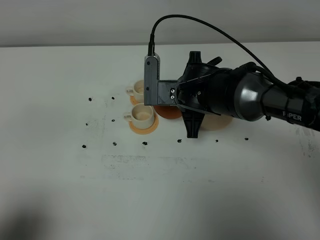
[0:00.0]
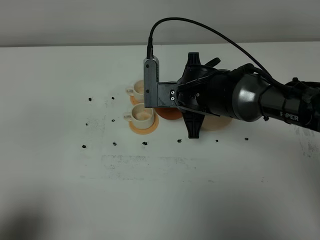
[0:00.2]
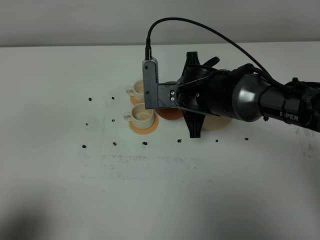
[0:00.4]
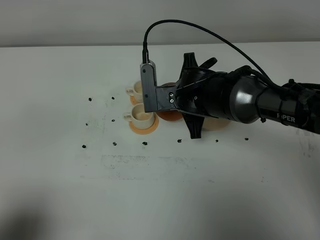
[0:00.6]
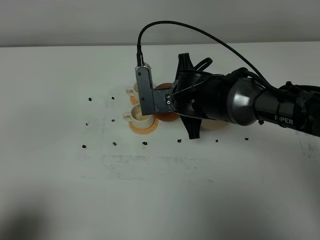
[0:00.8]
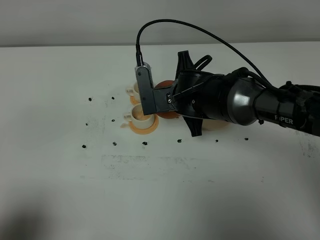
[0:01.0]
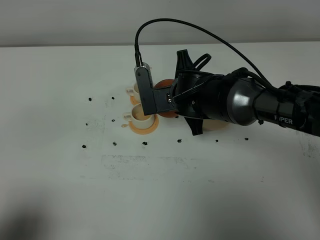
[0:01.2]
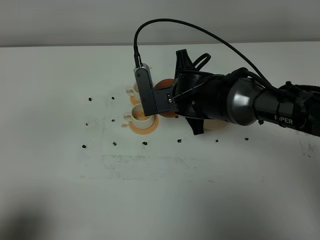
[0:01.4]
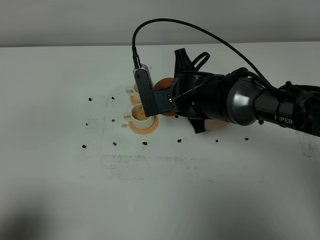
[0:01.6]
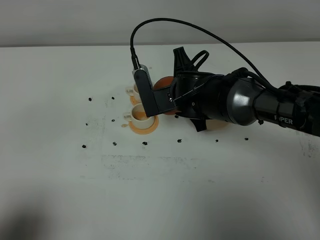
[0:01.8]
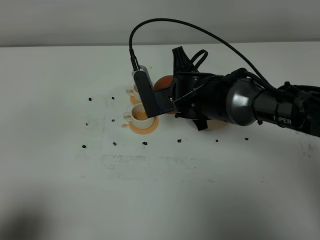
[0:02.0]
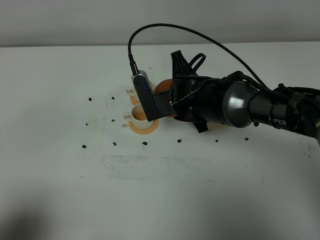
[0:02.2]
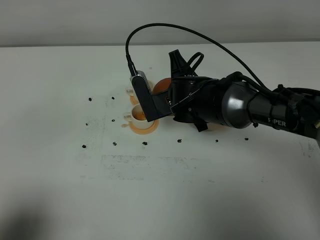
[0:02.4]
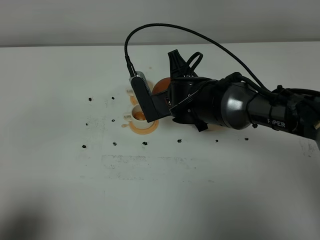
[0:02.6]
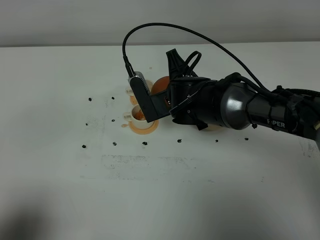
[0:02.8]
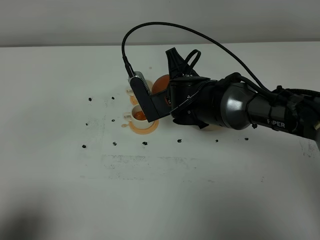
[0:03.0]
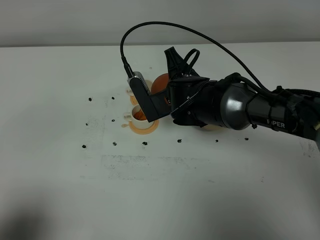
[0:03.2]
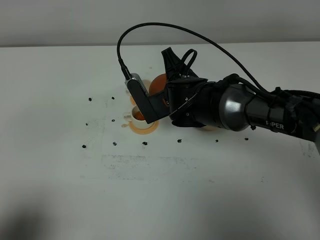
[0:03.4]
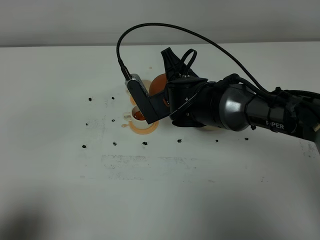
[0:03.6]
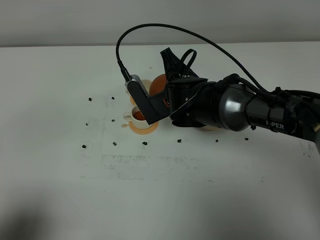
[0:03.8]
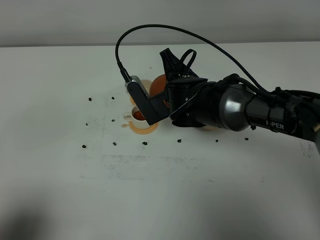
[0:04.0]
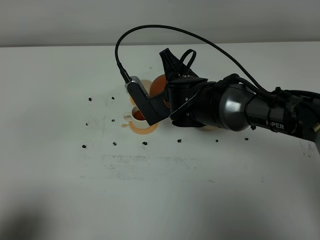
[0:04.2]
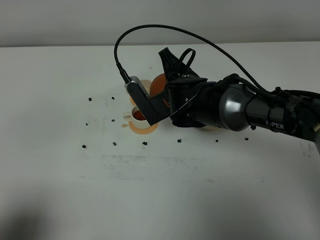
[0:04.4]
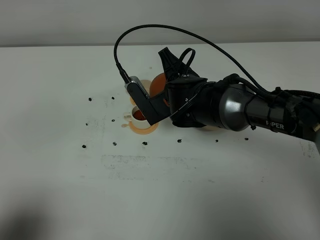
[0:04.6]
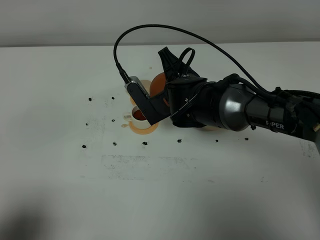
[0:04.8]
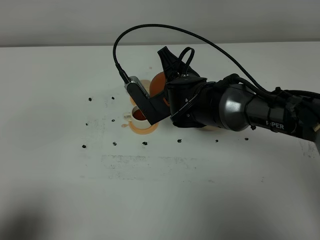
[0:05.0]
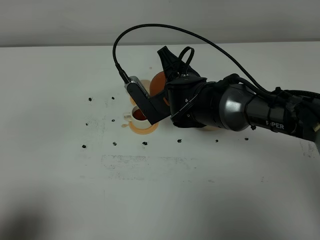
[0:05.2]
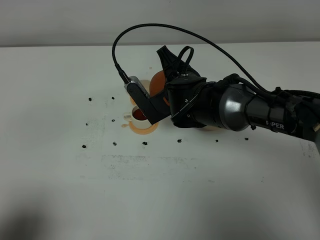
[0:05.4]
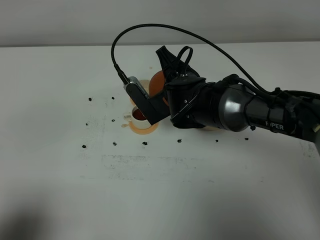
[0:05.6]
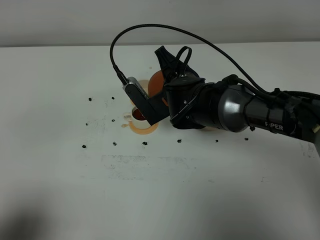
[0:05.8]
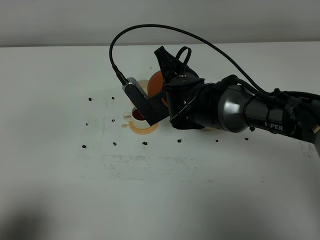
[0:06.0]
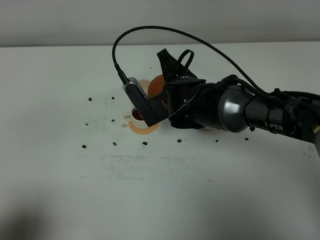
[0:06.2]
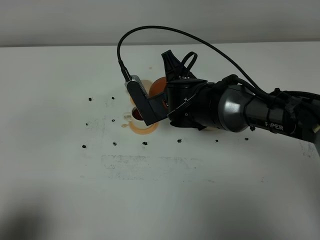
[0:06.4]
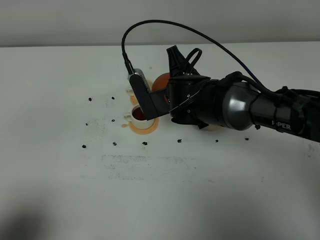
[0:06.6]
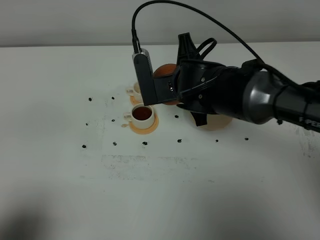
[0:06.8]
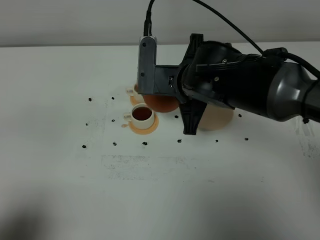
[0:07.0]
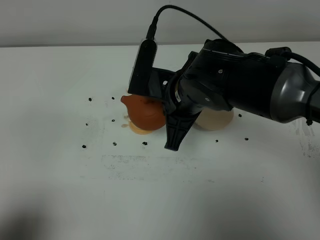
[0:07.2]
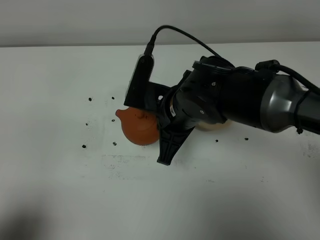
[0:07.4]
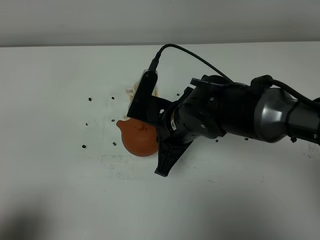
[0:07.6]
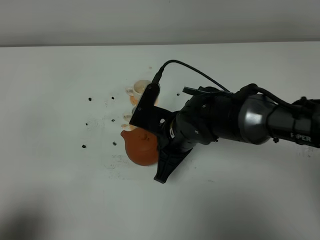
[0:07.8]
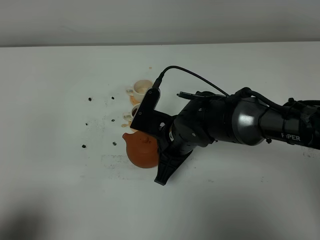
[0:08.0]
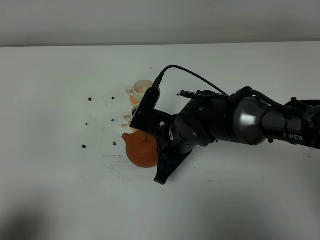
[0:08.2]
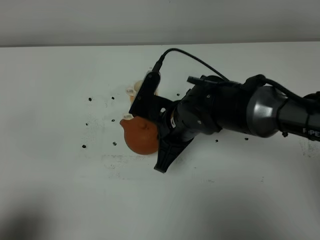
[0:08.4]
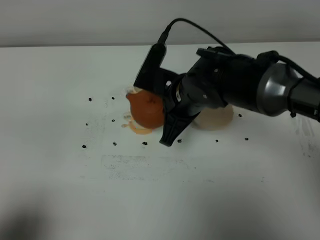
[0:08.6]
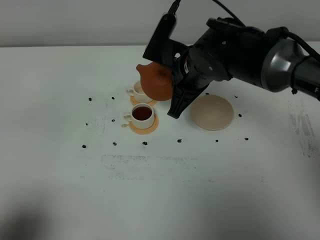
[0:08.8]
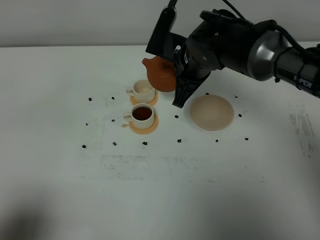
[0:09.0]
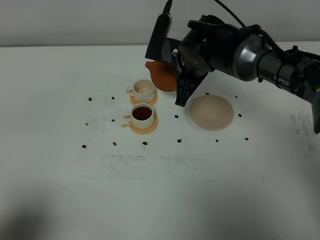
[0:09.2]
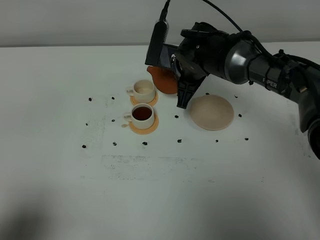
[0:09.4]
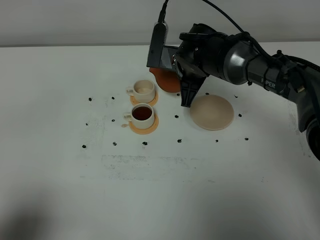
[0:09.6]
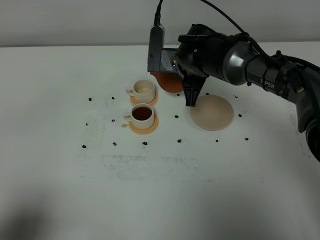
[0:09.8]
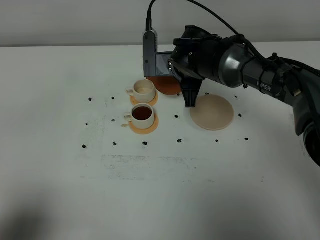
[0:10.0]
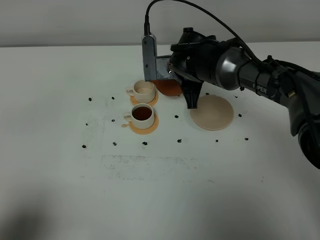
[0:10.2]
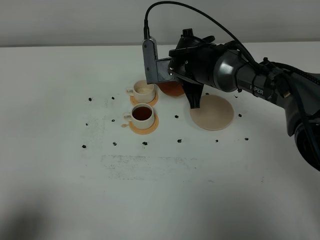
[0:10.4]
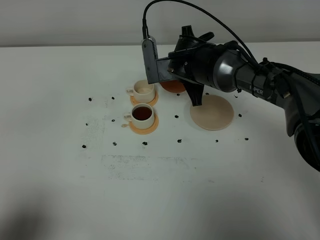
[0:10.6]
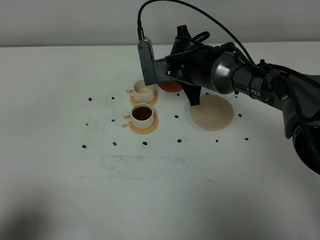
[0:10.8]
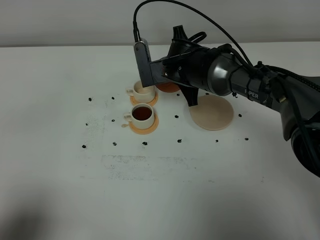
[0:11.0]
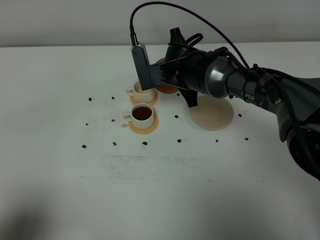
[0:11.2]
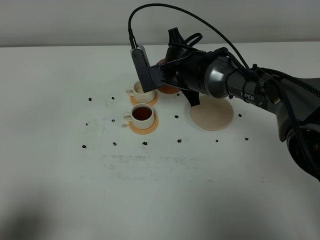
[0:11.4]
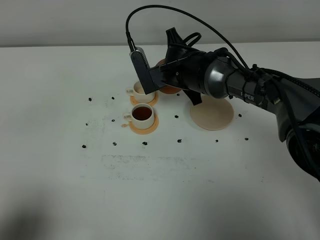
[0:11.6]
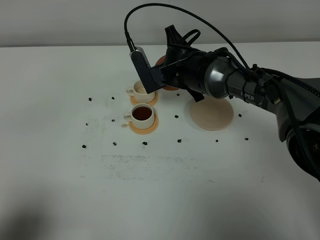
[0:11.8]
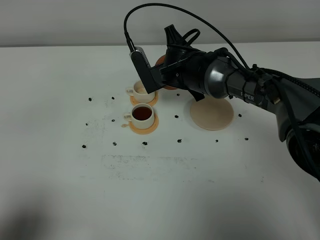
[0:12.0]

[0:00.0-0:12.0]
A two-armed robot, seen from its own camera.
Task of the whole recording: grasp the brown teapot and pour the tea into the two white teacups one by one, put the brown teapot back in its original place.
0:00.0 to 0:01.6: The grippers stay close to where they were, moving slightly.
0:01.6 to 0:04.4: The grippers make only small movements.
0:04.4 to 0:06.0: Neither gripper changes place.
0:06.0 to 0:07.6: The right gripper heads backward, covering about 5 cm.
0:07.6 to 0:09.0: The right gripper moves forward, about 10 cm.
0:09.0 to 0:10.4: The right gripper changes place by roughly 5 cm.
0:10.4 to 0:12.0: The grippers move only a little.

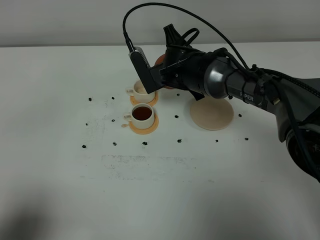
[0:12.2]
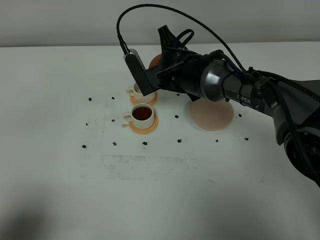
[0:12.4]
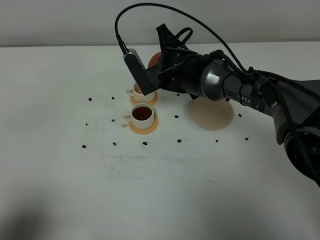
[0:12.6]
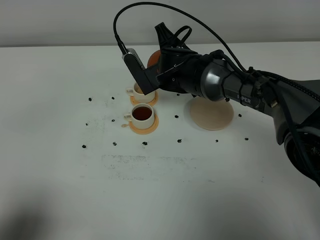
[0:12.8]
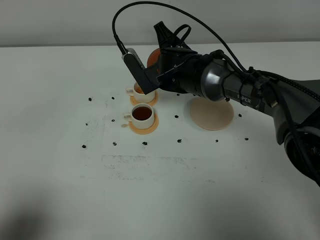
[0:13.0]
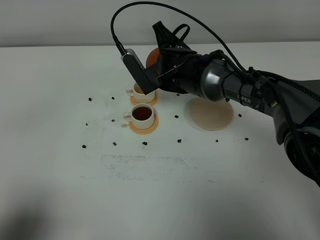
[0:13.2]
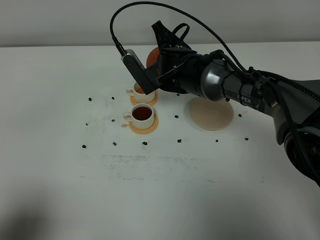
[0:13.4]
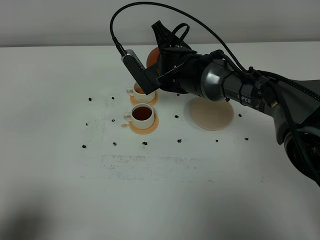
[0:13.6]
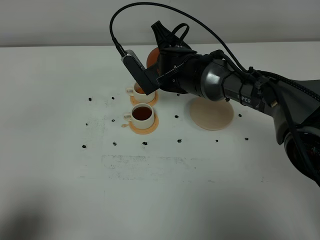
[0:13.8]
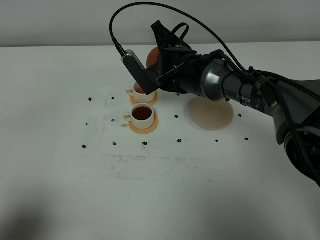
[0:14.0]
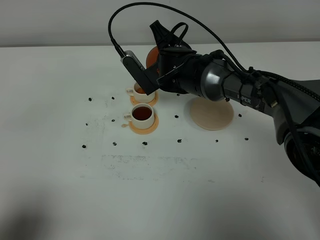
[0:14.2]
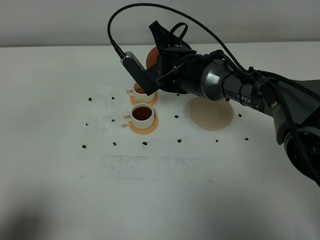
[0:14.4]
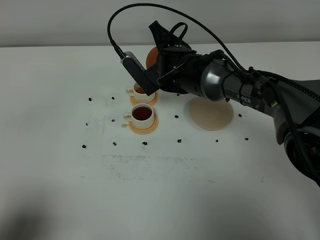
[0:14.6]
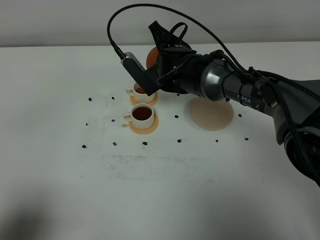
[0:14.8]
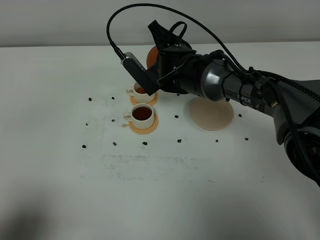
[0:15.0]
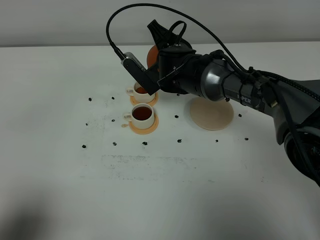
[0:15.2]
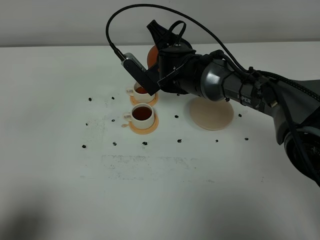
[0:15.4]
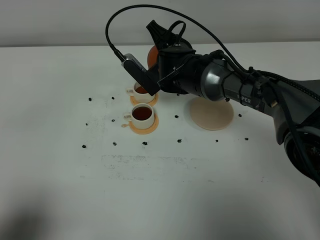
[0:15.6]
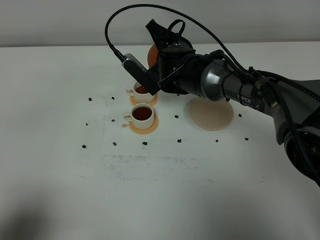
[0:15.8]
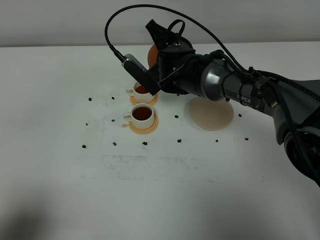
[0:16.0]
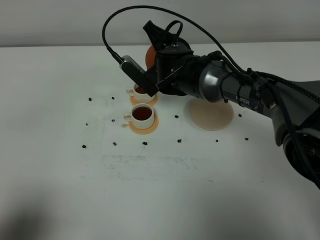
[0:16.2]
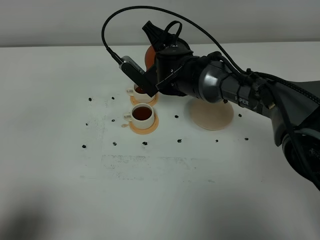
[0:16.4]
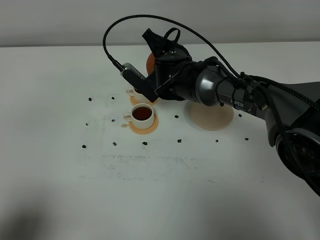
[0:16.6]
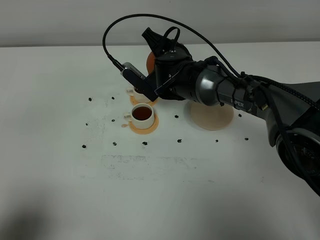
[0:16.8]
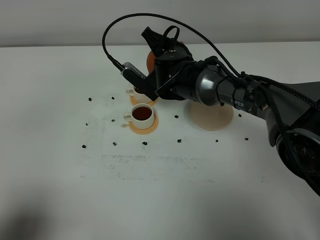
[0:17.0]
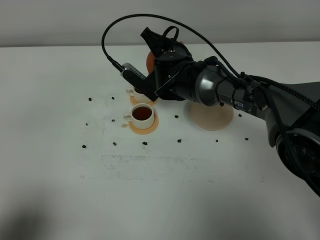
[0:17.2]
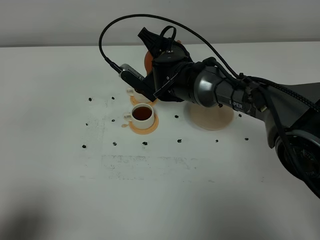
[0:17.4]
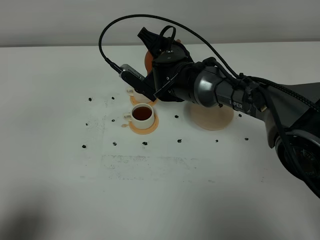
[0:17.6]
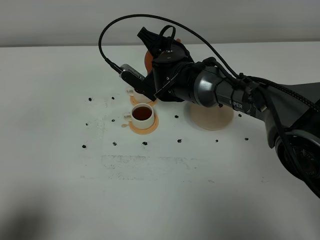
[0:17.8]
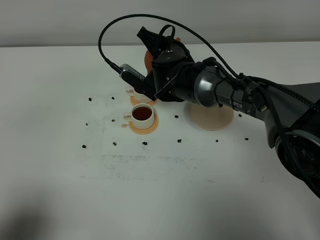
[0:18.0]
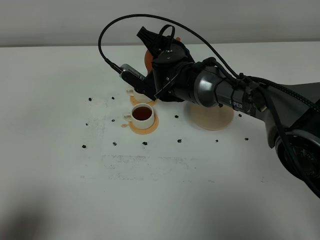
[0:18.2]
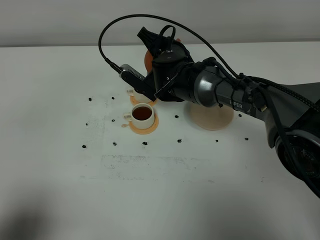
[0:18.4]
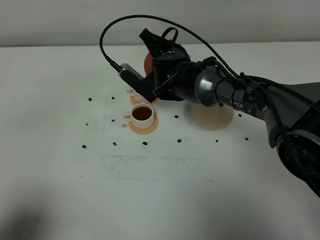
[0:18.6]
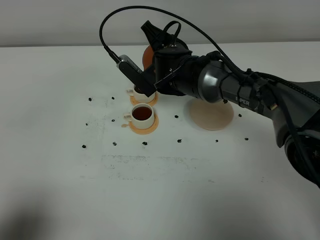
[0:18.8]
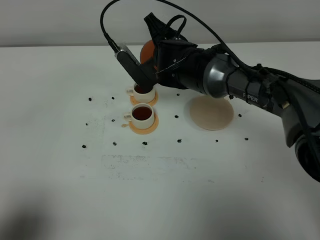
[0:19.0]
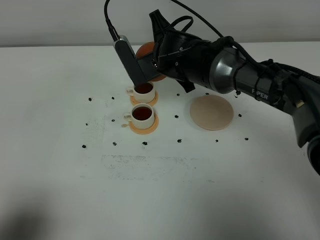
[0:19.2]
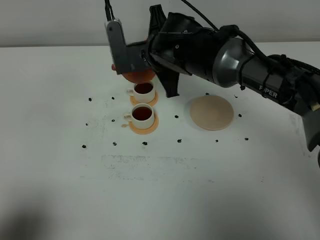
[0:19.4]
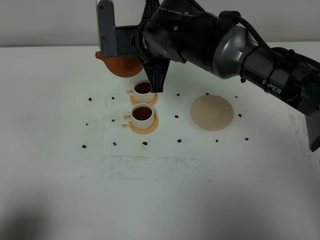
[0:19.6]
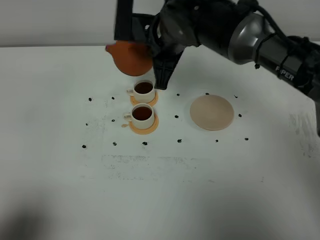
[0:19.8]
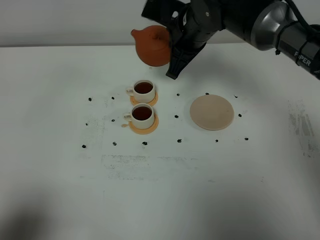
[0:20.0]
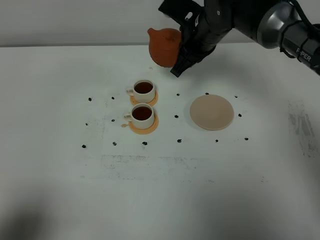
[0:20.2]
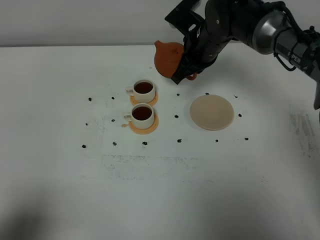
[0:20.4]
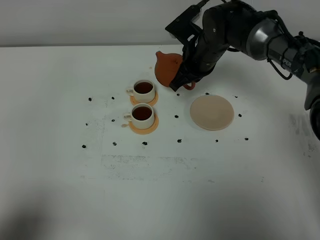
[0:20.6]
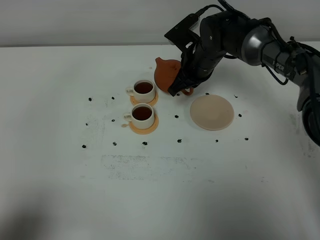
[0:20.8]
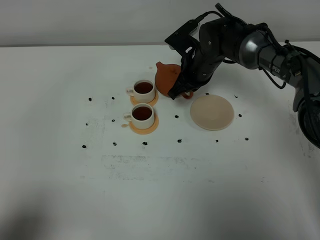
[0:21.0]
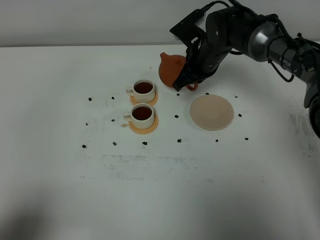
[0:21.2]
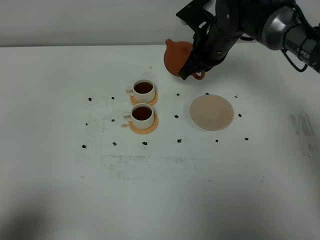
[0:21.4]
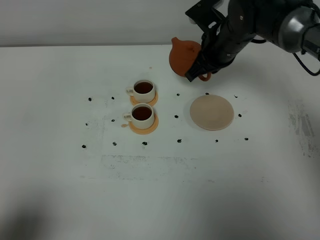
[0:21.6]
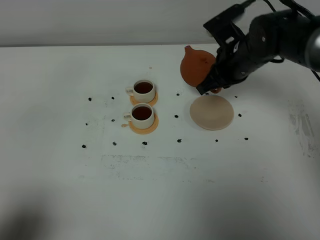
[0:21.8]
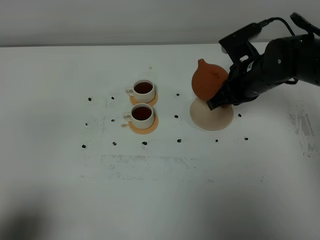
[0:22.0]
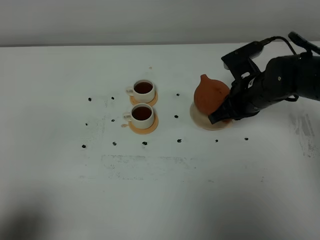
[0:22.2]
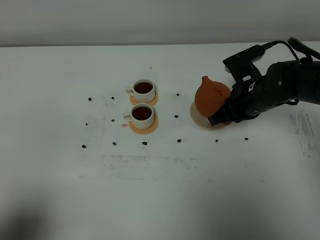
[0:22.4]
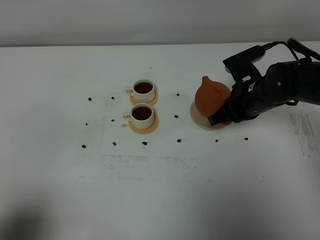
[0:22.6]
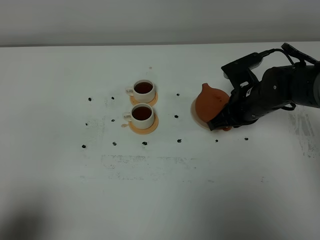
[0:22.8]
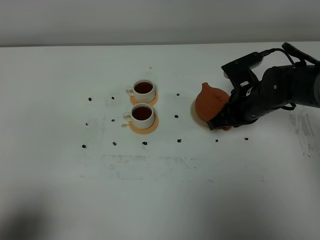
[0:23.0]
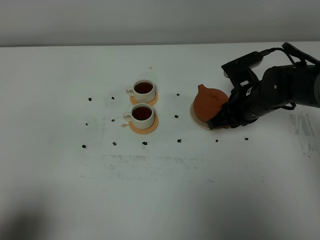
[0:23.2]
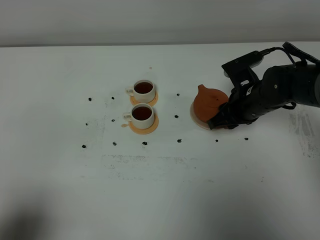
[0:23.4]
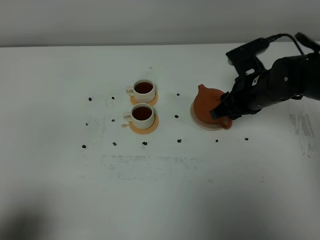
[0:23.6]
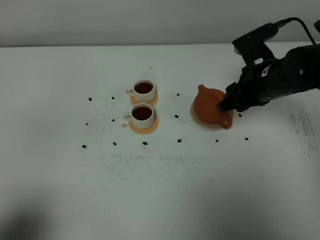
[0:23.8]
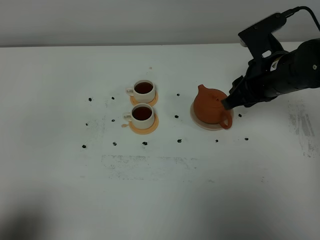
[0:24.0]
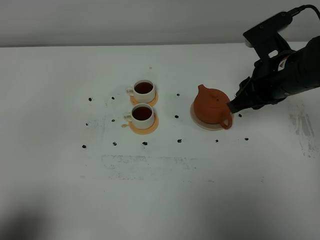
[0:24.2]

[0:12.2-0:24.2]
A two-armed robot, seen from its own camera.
Task of the whole recording: grasp the brown teapot and pour the tea into the two white teacups one by one, put the brown teapot back in its original place.
Step, 0:12.2 to 0:19.0: Pour tea into the teacup with the right gripper.
0:12.2 to 0:15.2: There are only small adjustments of the grippers.
0:15.2 to 0:18.2: There are only small adjustments of the grippers.
0:18.2 to 0:19.8: The right gripper travels upward by some 10 cm.
0:19.8 to 0:21.2: The right gripper shifts approximately 15 cm downward, forward and to the right.
0:21.2 to 0:22.6: The right gripper is displaced backward and to the right by roughly 15 cm.
0:22.6 to 0:24.2: The right gripper travels upward by about 10 cm, and opens.
